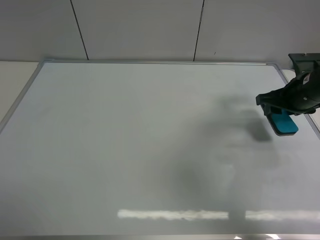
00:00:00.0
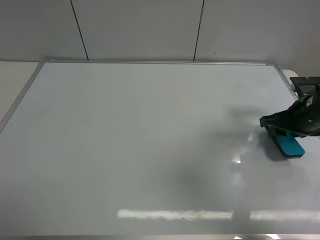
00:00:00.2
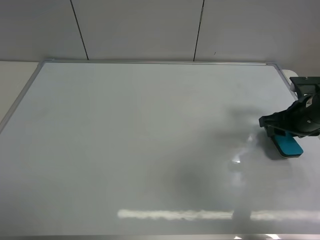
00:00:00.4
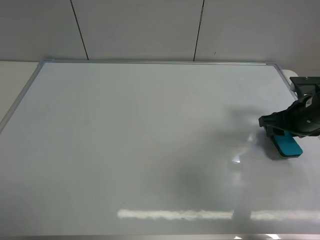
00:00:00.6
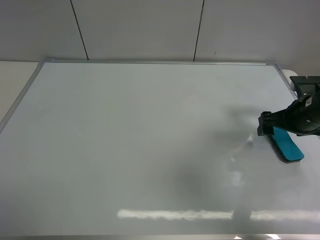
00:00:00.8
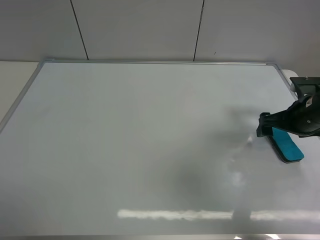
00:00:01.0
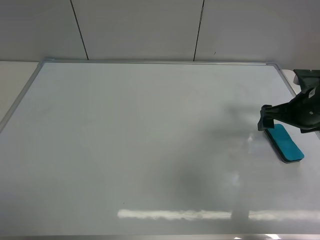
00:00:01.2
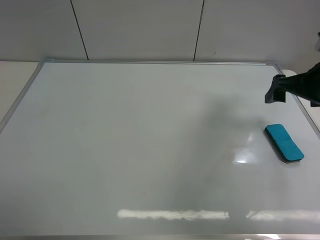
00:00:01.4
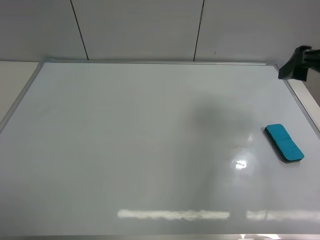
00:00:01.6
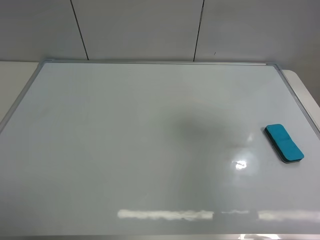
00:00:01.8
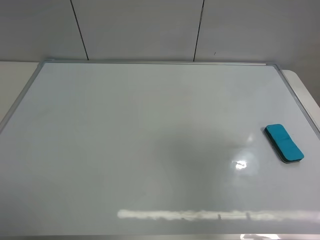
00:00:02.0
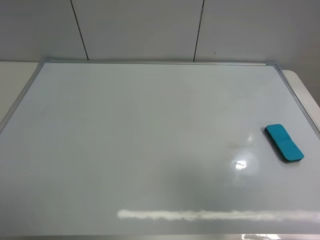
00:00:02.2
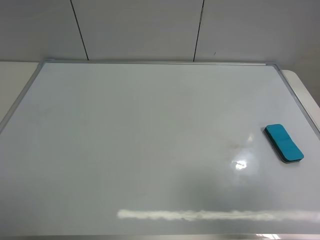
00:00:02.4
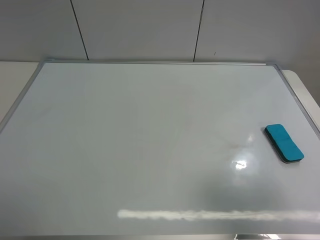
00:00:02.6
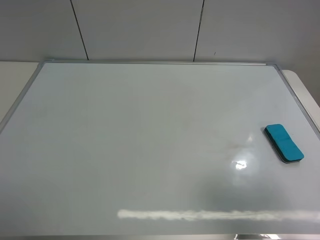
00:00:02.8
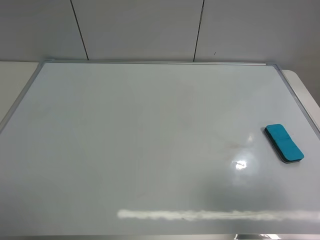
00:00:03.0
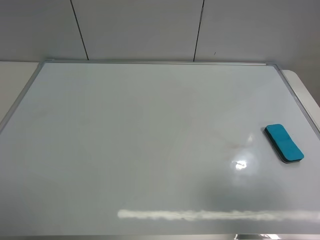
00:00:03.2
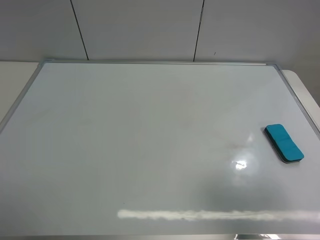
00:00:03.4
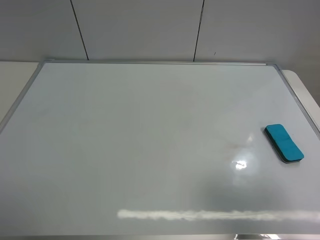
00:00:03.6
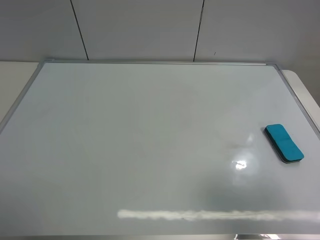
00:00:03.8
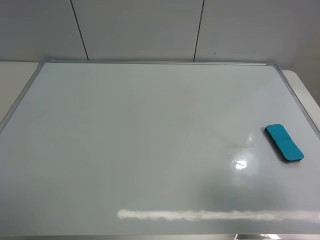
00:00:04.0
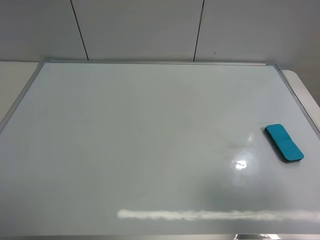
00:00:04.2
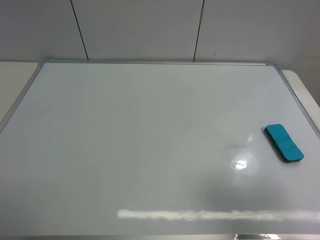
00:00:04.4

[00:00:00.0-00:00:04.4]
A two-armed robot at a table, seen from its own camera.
Task of the whole recording: use the left gripper to place the eraser in the right, use the right gripper to pick up the eraser, wipe the notes on the whiteboard clean, and then put it down.
Step, 00:00:00.0 to 00:00:00.8: Place the board eraser on the right side of board with right gripper.
00:00:00.0 to 00:00:01.4: The right gripper heads upward, covering some 5 cm, and opens.
00:00:01.4 to 00:00:03.0: The right gripper goes approximately 25 cm backward.
00:00:03.0 to 00:00:04.4: Neither gripper changes place.
